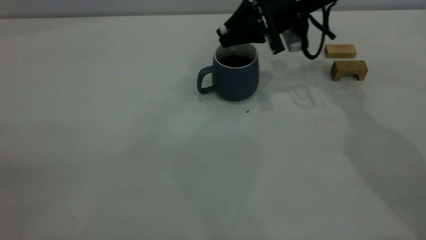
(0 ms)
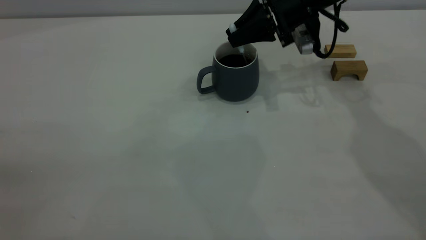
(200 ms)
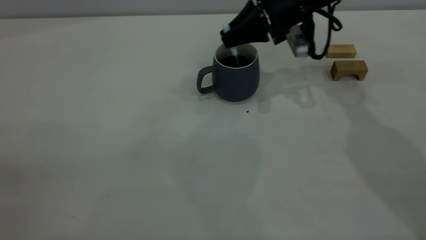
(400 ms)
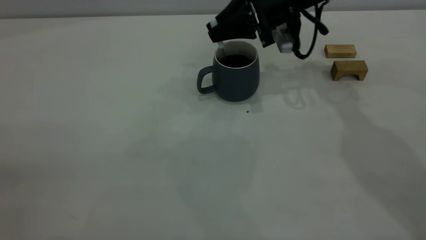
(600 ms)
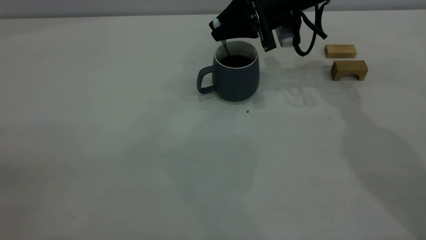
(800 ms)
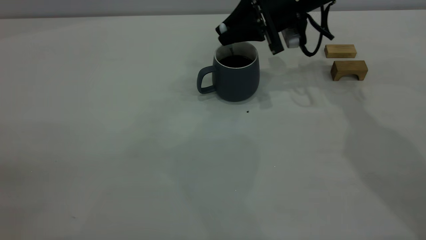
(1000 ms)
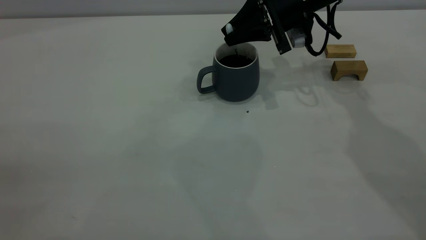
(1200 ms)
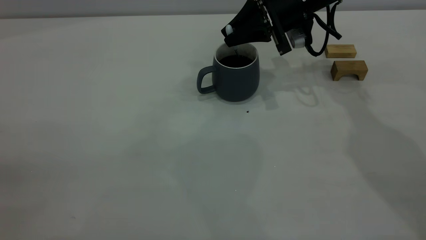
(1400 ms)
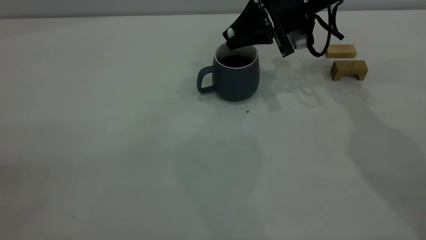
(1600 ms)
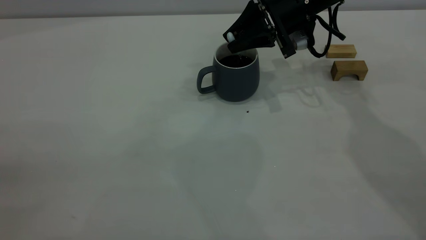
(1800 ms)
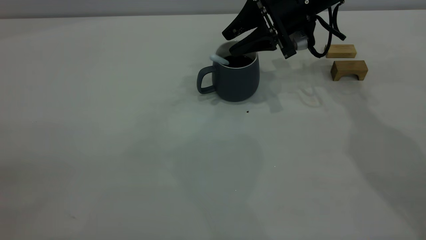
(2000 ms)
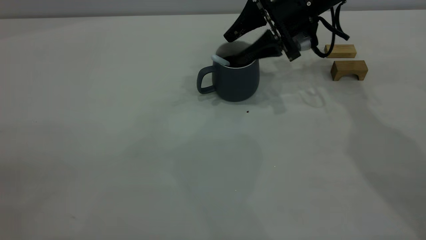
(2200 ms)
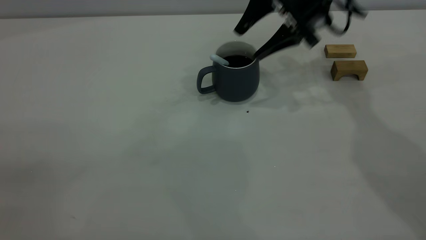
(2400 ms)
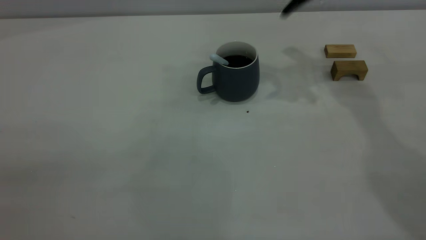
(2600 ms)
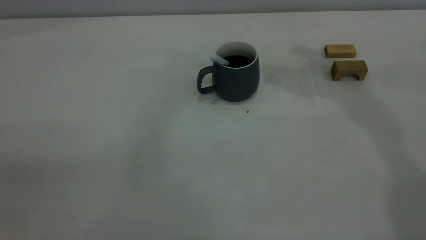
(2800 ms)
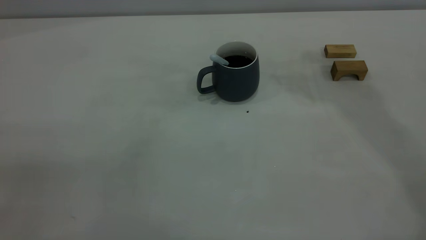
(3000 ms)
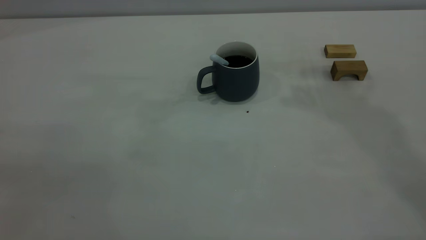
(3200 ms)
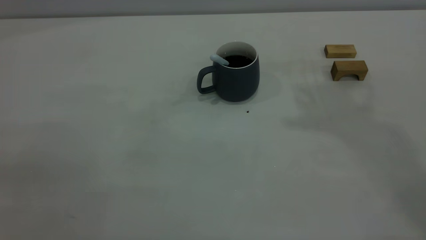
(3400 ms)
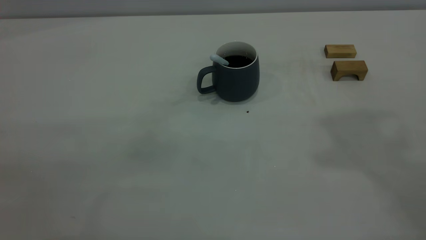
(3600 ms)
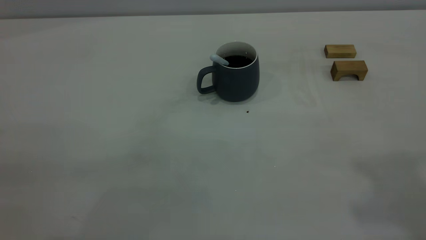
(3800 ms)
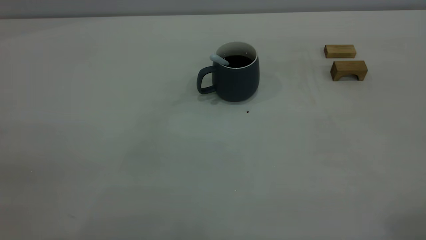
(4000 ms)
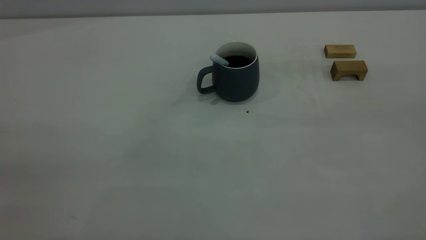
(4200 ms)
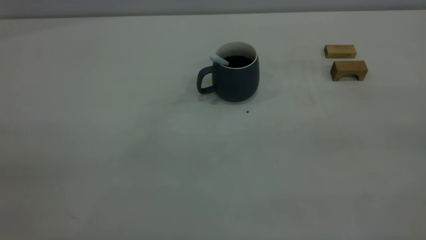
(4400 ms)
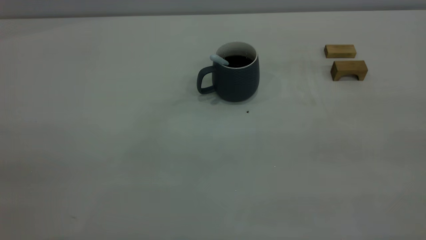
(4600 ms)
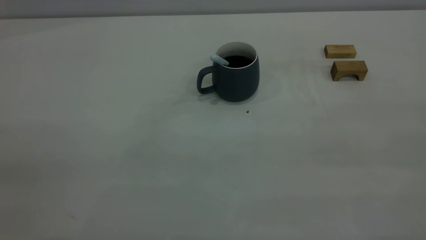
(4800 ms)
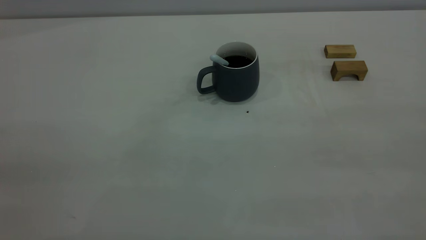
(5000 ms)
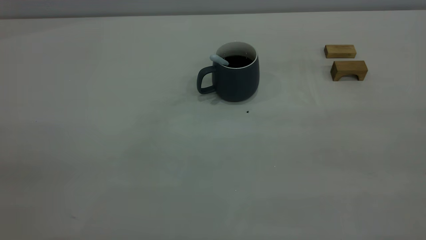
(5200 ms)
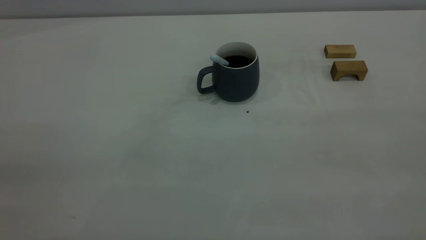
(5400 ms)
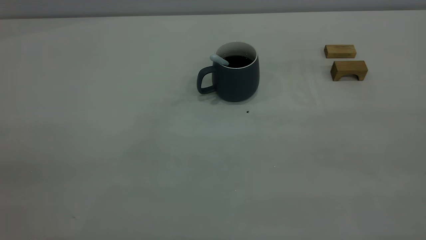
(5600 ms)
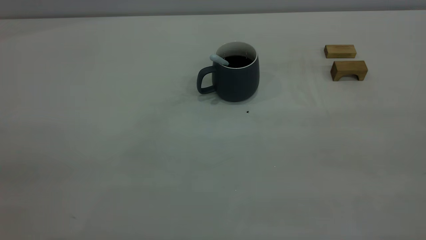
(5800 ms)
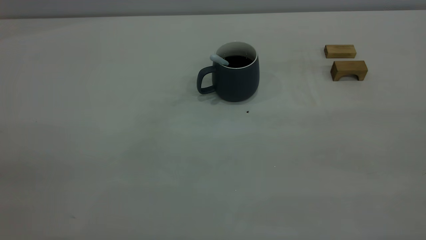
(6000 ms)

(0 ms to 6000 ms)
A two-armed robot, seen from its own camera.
Step, 0 ms - 2400 ms: Stir the coffee in the cup.
0 ms - 1600 ms: The grippers move only a little.
1600 ms - 3000 ms: The right gripper moves upward, approximately 35 cm, and opens its fingers.
